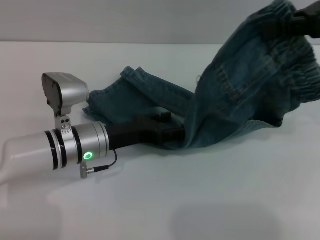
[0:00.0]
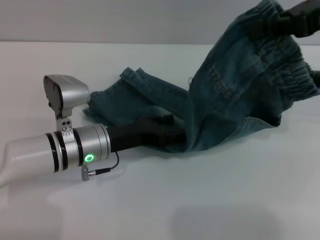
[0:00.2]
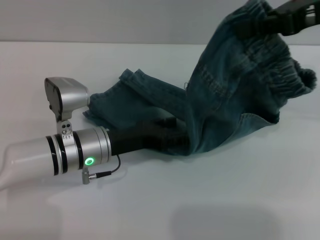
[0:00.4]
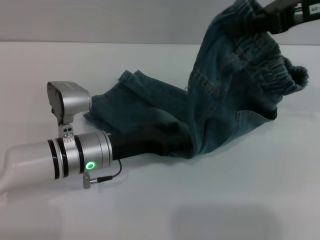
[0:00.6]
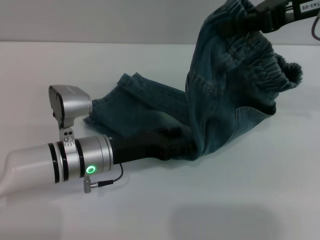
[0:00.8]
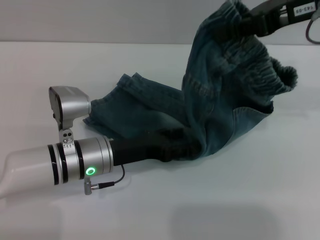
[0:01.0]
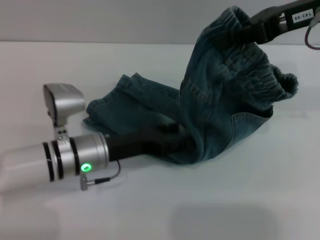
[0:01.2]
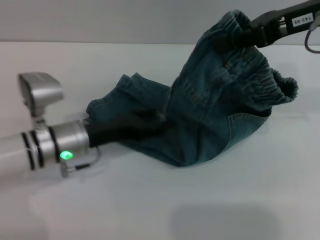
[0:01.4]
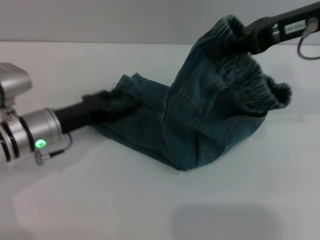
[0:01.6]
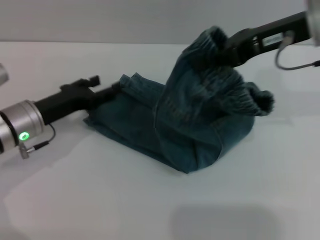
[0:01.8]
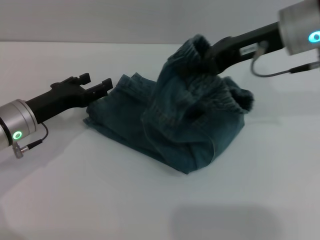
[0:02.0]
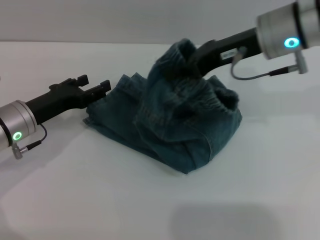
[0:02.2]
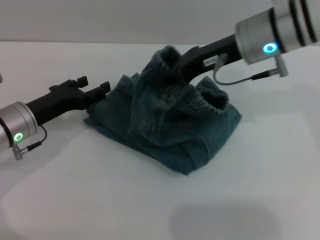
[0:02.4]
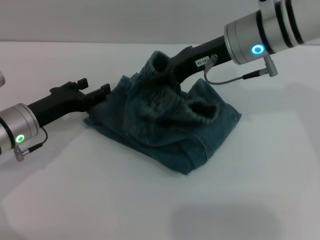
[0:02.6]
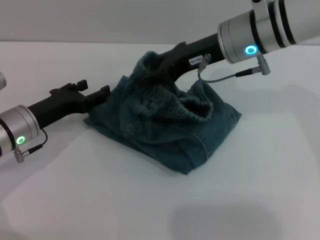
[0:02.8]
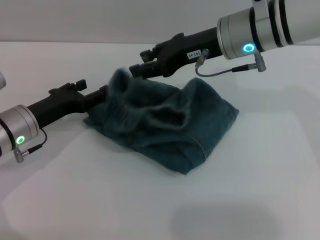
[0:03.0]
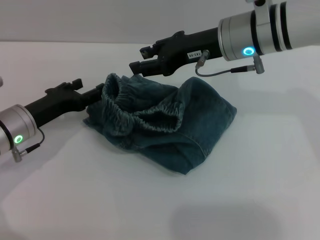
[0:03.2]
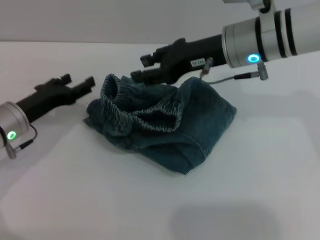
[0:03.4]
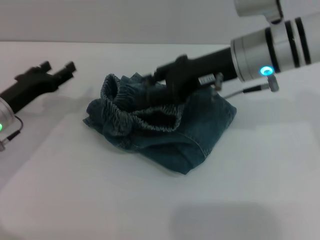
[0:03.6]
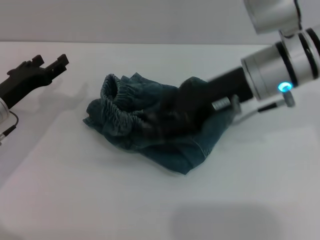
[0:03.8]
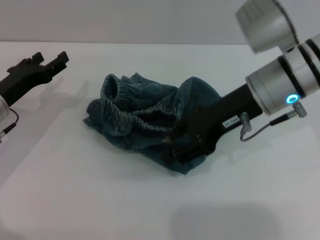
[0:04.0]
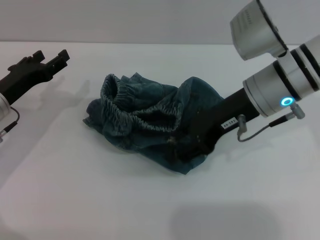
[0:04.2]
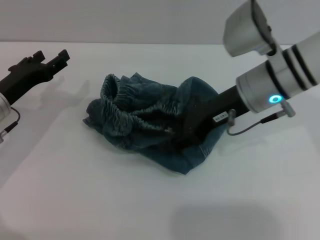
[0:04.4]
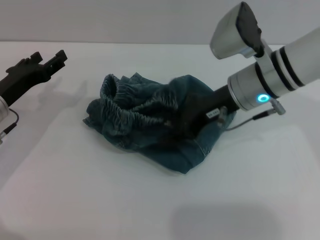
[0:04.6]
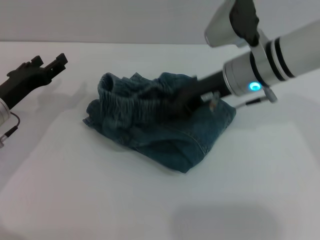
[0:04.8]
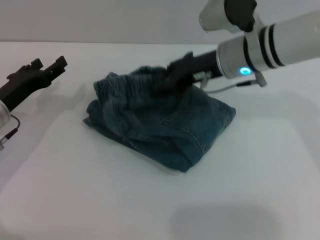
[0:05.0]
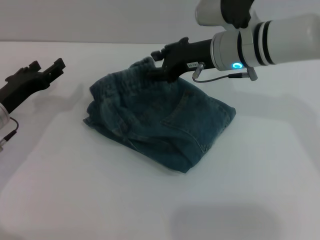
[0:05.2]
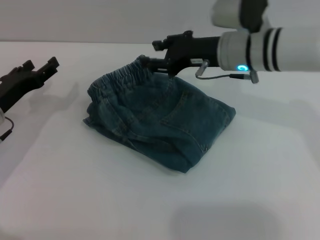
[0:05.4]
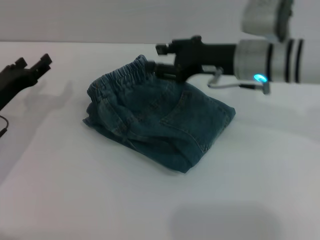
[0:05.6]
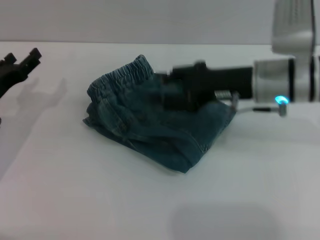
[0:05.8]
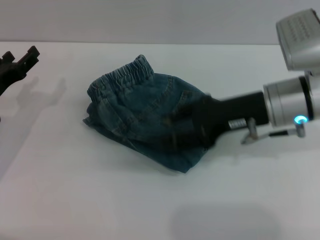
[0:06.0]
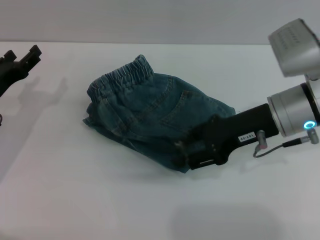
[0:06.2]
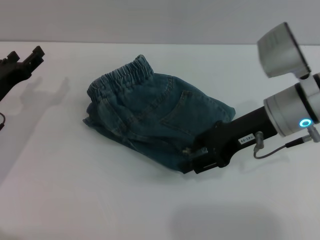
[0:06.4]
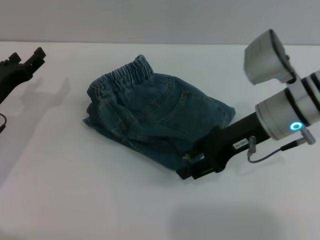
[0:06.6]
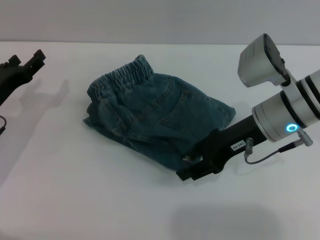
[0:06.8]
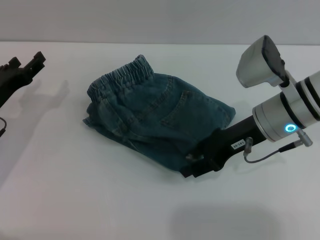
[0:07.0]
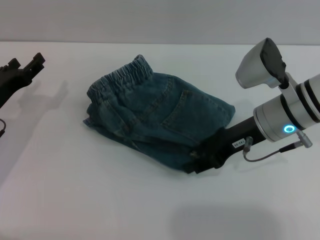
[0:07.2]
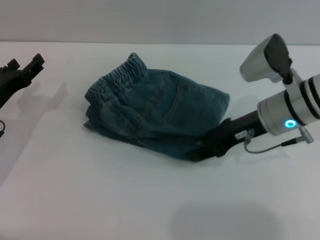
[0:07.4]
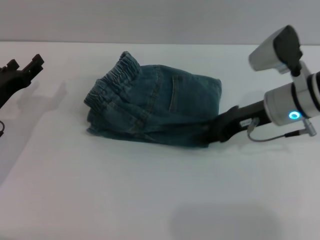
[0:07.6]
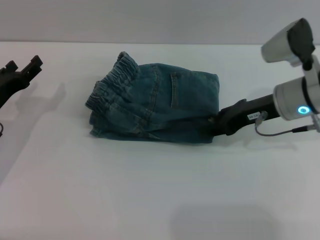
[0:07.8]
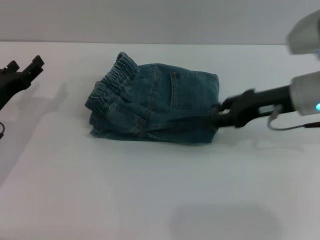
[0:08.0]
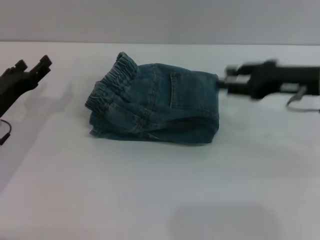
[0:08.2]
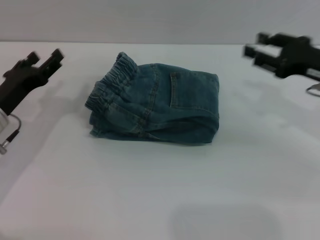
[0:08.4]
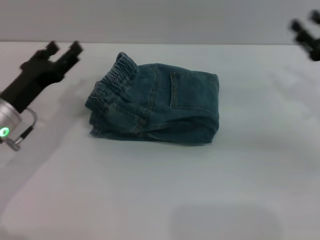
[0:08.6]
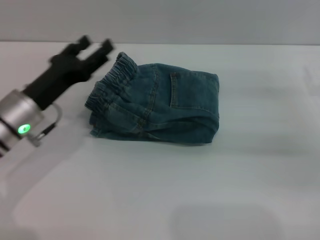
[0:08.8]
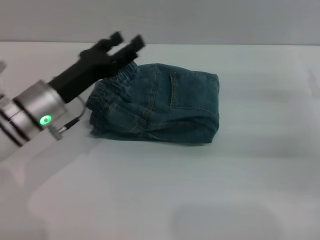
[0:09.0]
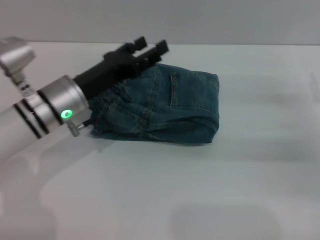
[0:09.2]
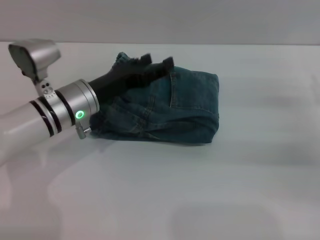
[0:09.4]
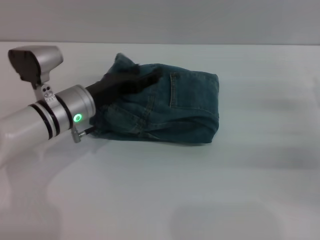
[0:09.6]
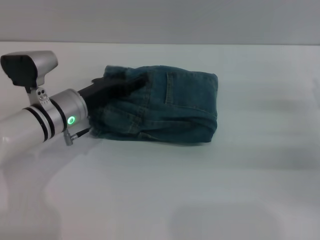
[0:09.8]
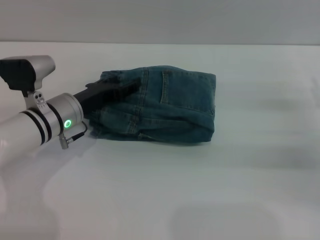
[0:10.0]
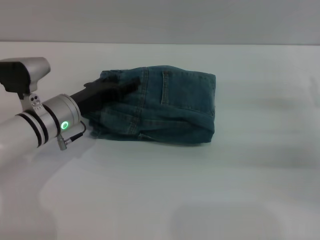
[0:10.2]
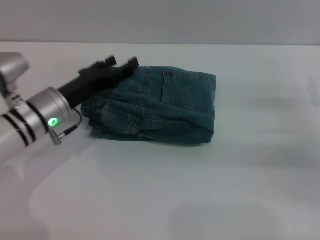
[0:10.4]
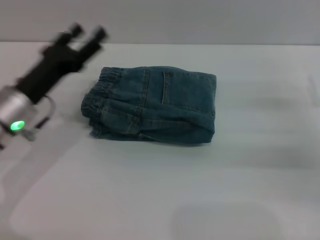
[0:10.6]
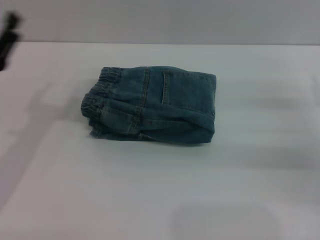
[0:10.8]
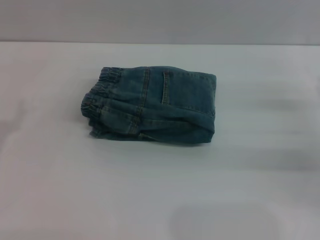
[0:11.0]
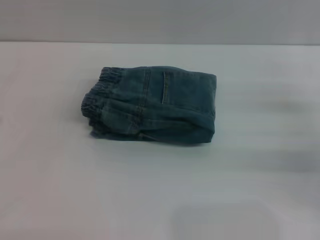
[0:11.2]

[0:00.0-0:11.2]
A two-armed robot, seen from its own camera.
Step, 0:00.0 to 0:05.4: Fold the pants from right to left with the right gripper.
Step, 0:05.8 to 0:08.0: Place the folded trousers onto the center area with the right grippers.
0:00.0 to 0:01.6: Both grippers travel together to the left, roughly 5 cm.
0:01.6 to 0:03.2: The right gripper heads to the left and downward, covering roughly 15 cm, and opens its fingers.
0:04.8 to 0:06.4: The right gripper heads backward, covering roughly 5 cm.
0:08.0 to 0:09.6: The left gripper heads to the right, covering about 15 cm, while the right gripper goes some 15 cm to the right, downward and backward.
0:09.6 to 0:11.2: The left gripper shifts roughly 25 cm to the left and backward.
